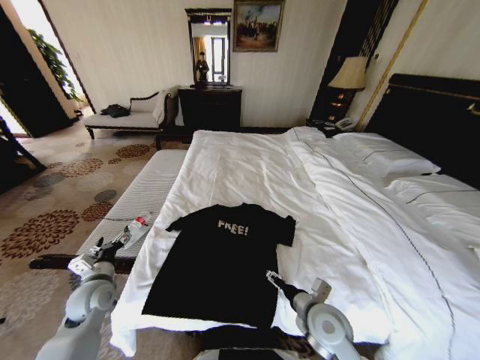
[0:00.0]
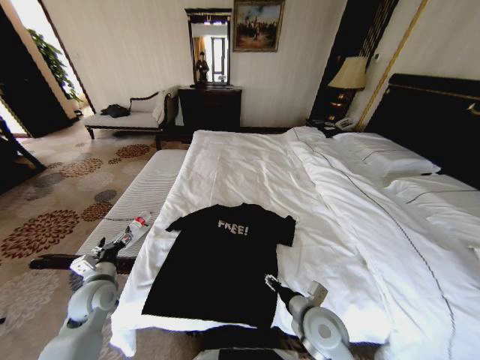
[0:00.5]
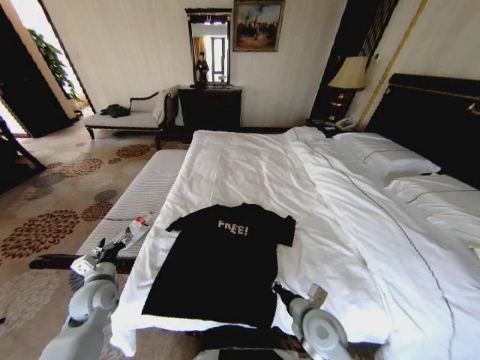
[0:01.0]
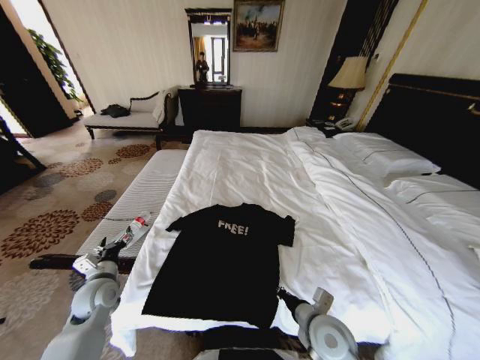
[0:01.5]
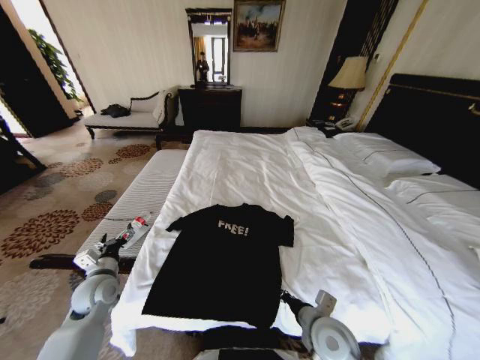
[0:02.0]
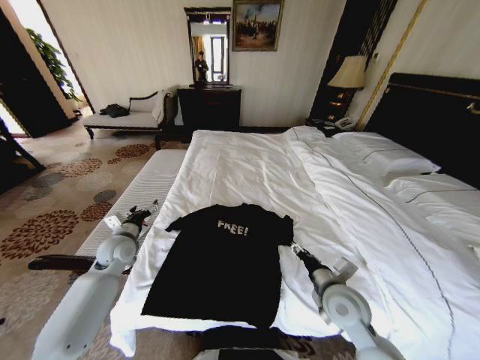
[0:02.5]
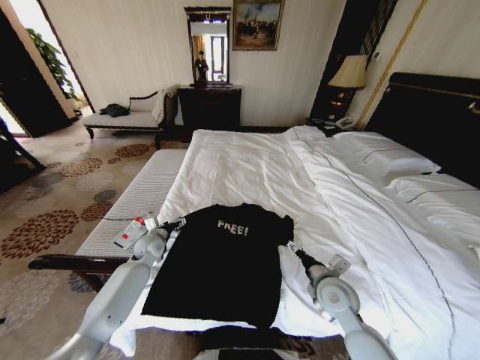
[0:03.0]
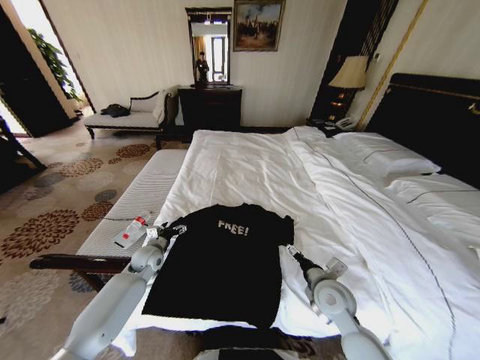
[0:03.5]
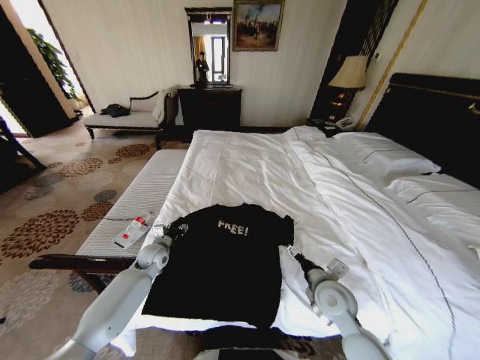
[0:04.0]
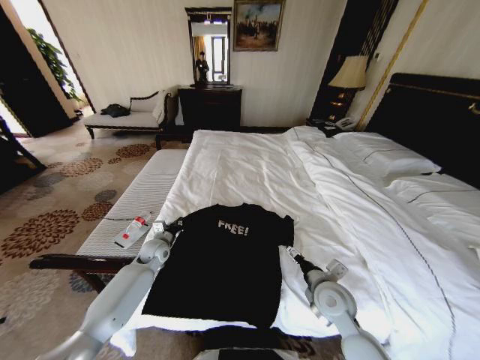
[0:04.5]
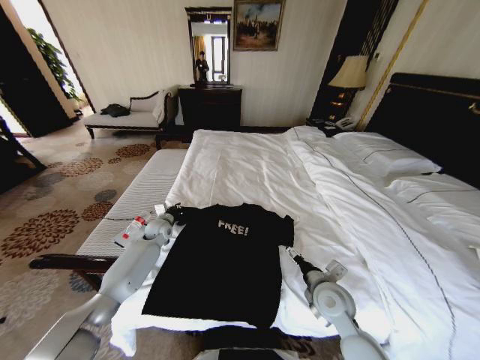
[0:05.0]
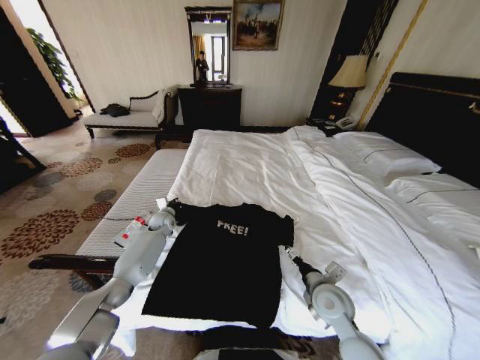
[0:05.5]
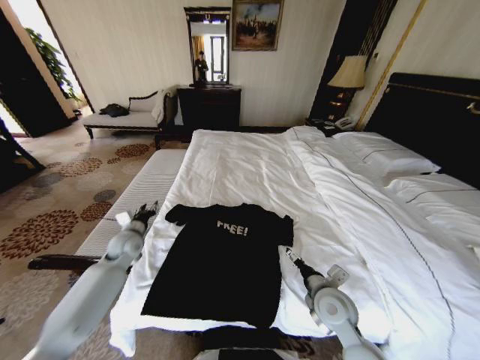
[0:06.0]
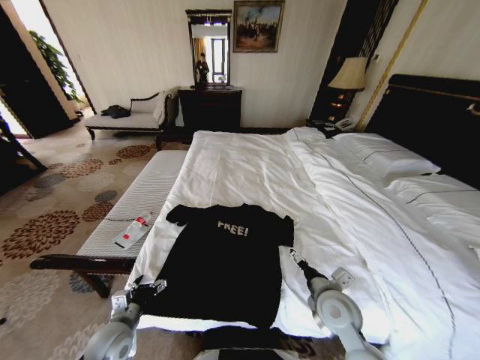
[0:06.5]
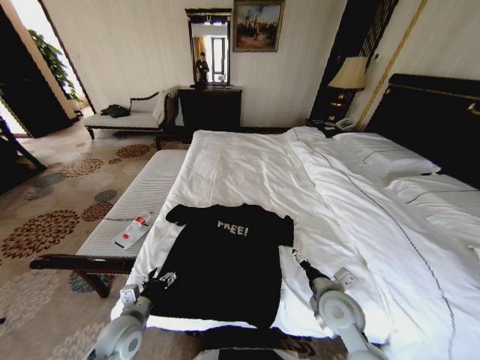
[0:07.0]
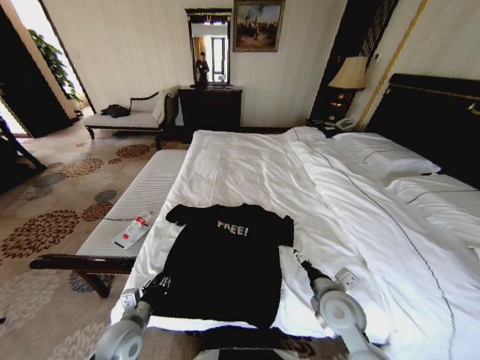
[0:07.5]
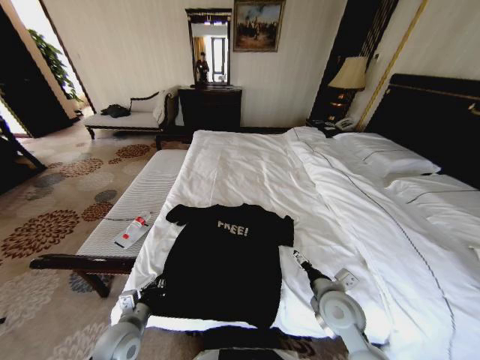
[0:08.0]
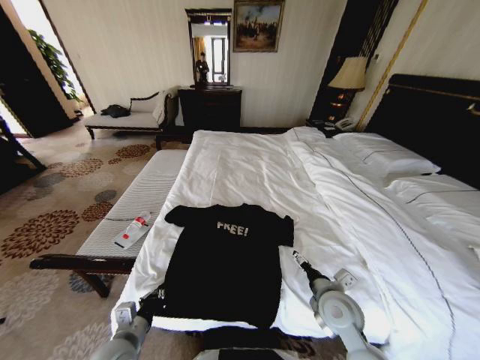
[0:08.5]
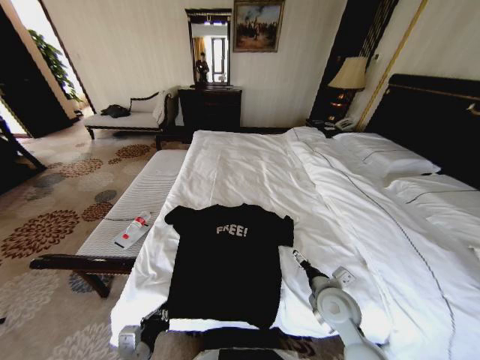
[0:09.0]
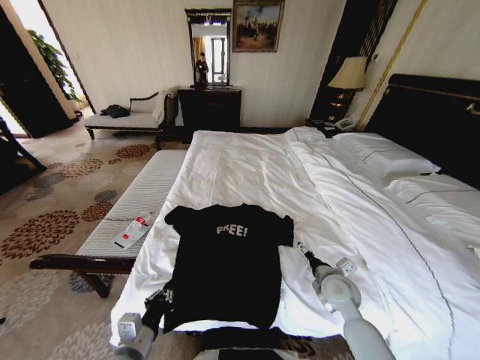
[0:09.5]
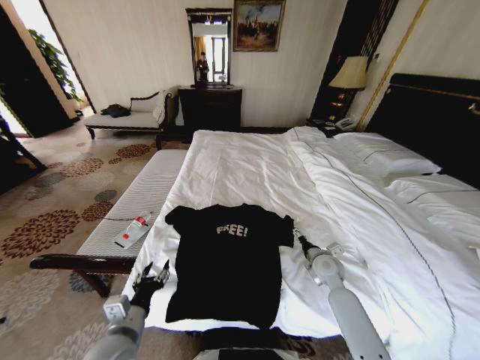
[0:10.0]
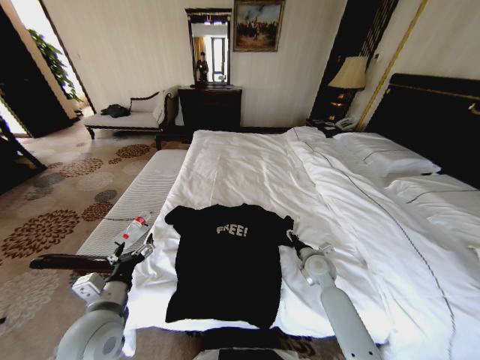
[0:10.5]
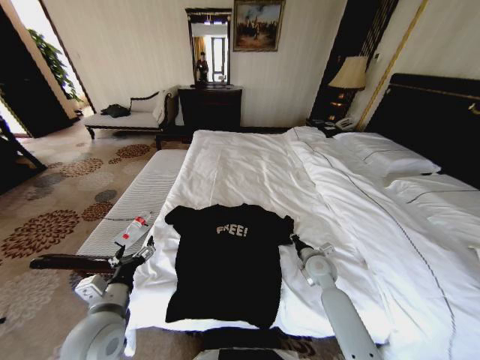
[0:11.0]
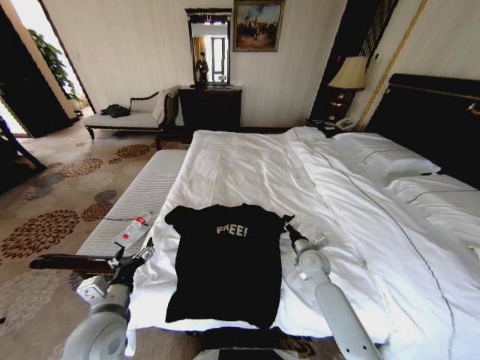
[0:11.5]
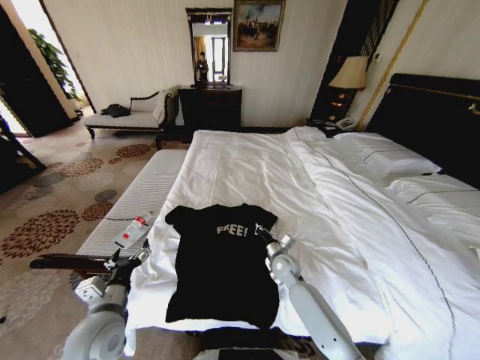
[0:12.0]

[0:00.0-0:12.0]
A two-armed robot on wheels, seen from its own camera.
Task of the whole recording: Fold the clothes on the bed.
0.0 to 2.0 s: The right gripper closes.
2.0 to 4.0 s: The right gripper travels forward by roughly 10 cm, and opens; the left gripper heads forward, to the right and downward, covering about 15 cm, and closes up.
4.0 to 6.0 s: The left gripper heads upward and to the left, covering approximately 10 cm, moves roughly 15 cm forward and comes back, and closes, then opens again.
6.0 to 8.0 s: The left gripper heads backward, covering about 25 cm, and closes.
8.0 to 10.0 s: The right gripper goes about 15 cm forward and to the right. Meanwhile the left gripper travels upward by about 10 cm, and opens up.
10.0 to 12.0 s: The right gripper moves to the left, approximately 10 cm, and closes its fingers. The left gripper changes place by some 5 cm, and opens its fingers.

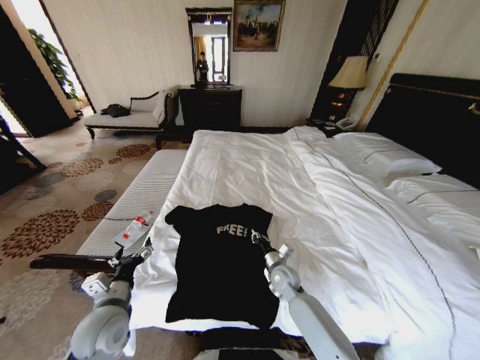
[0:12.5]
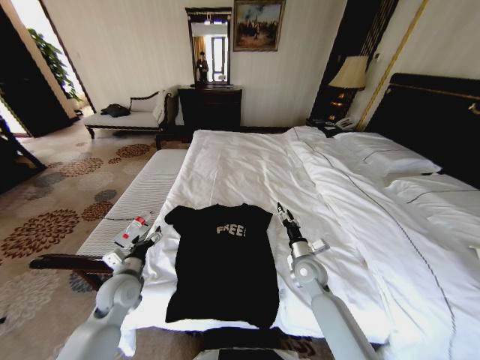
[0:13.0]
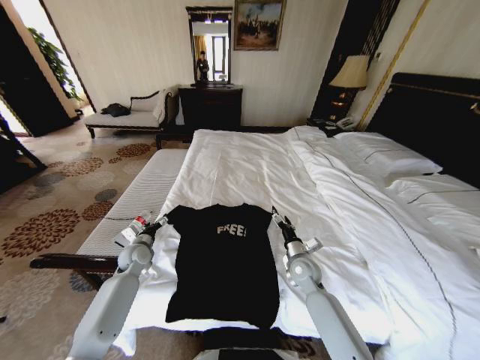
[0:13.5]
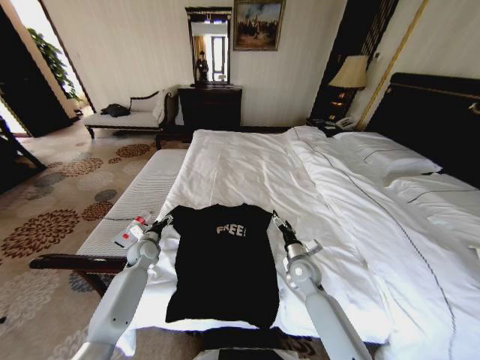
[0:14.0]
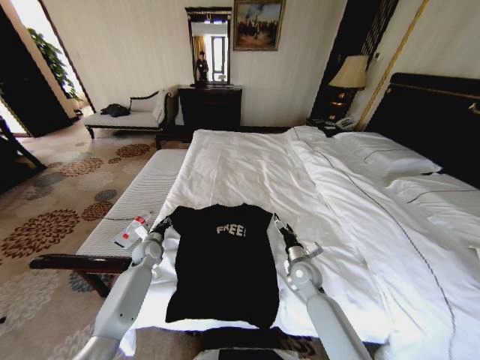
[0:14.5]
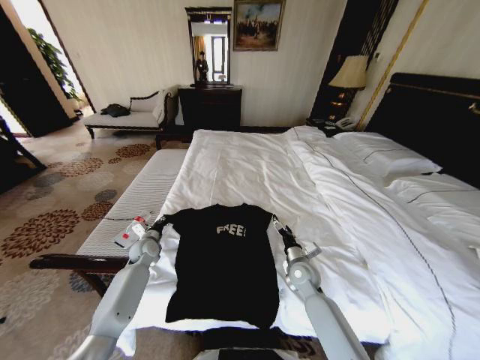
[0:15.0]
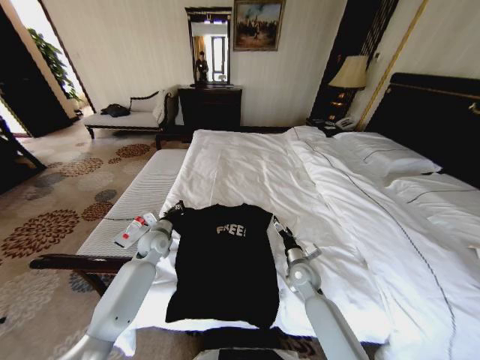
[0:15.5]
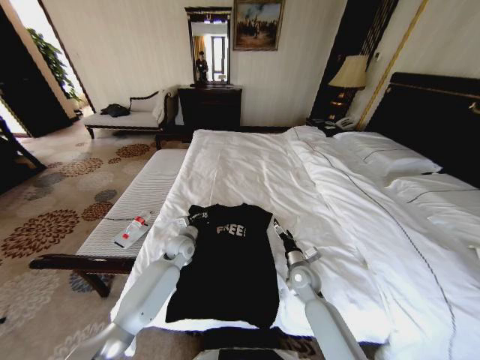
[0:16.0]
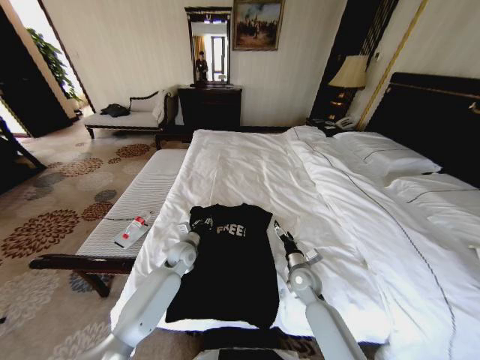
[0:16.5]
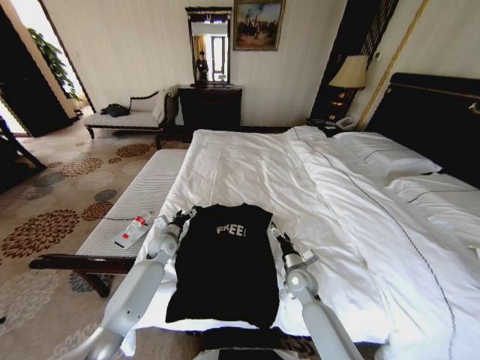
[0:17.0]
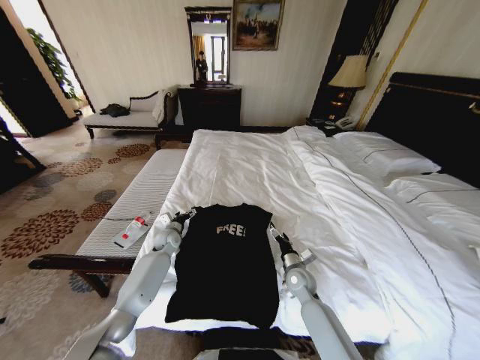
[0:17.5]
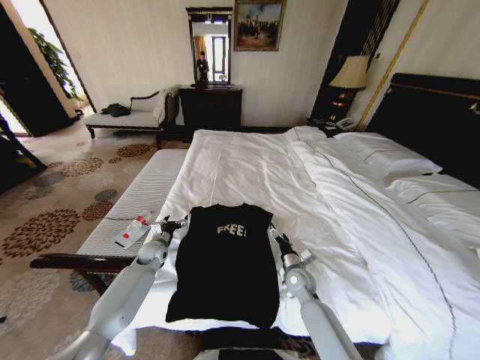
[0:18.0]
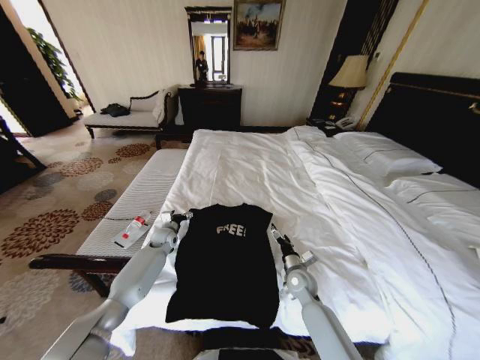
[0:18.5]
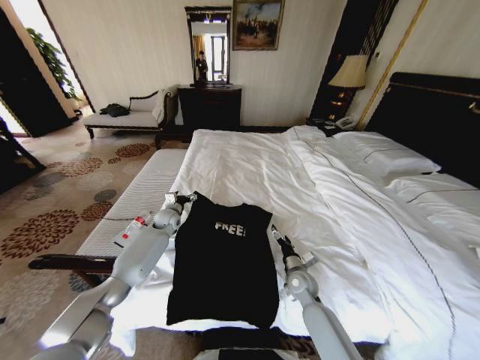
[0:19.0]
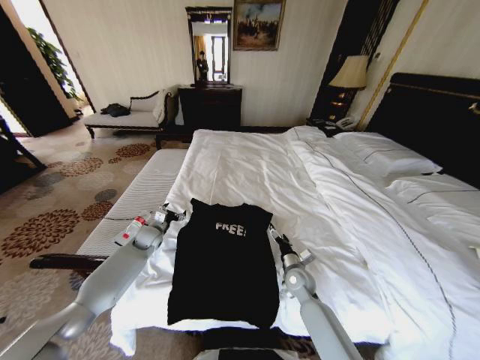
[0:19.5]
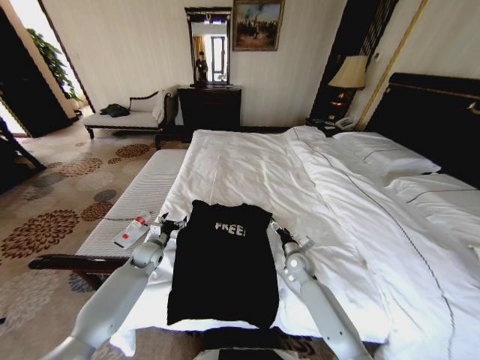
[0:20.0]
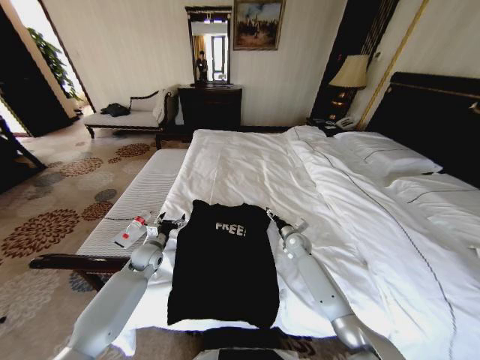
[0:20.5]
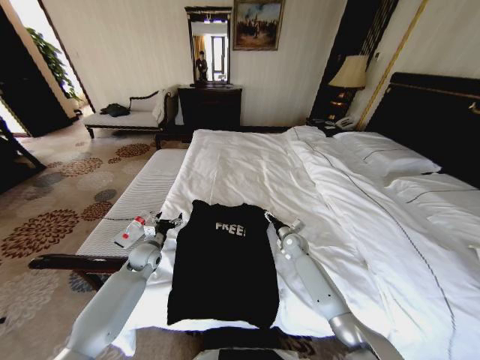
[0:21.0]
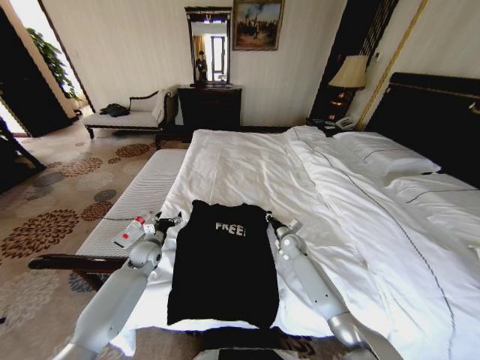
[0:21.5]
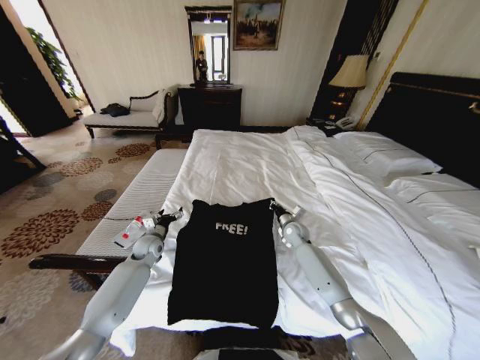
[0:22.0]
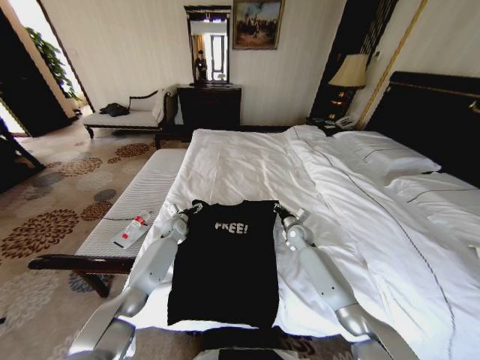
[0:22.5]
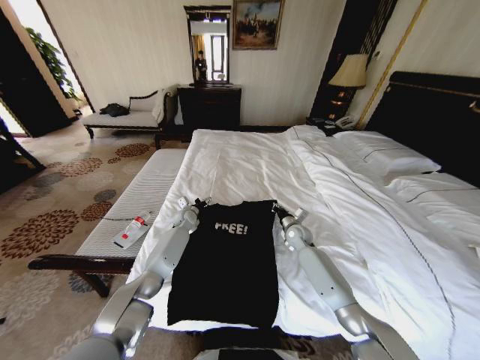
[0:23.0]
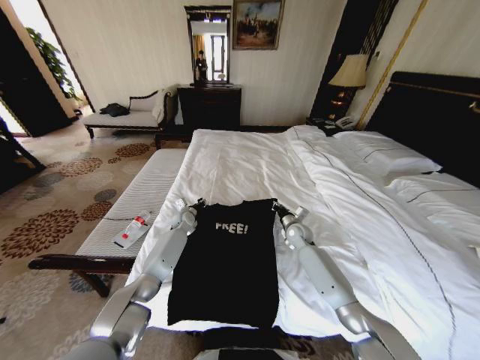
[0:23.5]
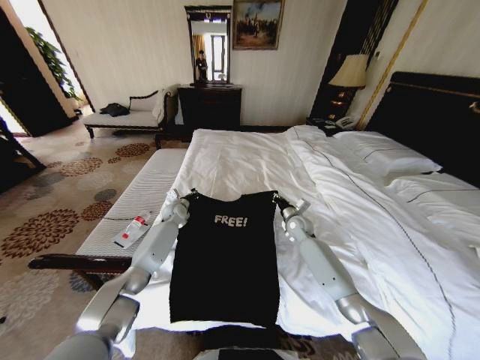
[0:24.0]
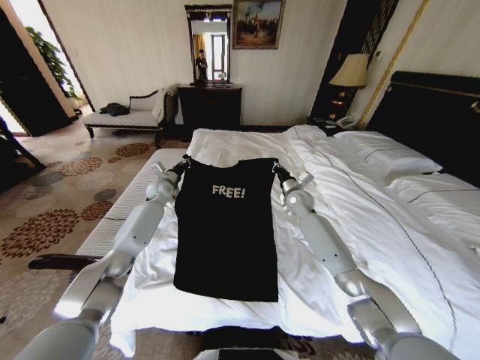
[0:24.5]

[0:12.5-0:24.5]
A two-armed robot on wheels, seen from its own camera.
Task of the whole recording: Fold the clothes on the bed.
12.5 to 14.5 s: The left gripper shifts approximately 25 cm forward and downward, and closes up; the right gripper is displaced to the right by about 5 cm, and opens.
14.5 to 16.5 s: The left gripper shifts some 15 cm to the right.
16.5 to 18.5 s: The left gripper goes approximately 10 cm to the left and forward, and opens.
18.5 to 20.5 s: The right gripper moves forward, roughly 15 cm, while the left gripper heads backward, covering approximately 10 cm.
20.5 to 22.5 s: The left gripper travels forward and to the right by approximately 15 cm; the right gripper closes its fingers.
22.5 to 24.5 s: Both grippers travel together upward and forward, some 15 cm. The left gripper closes its fingers.

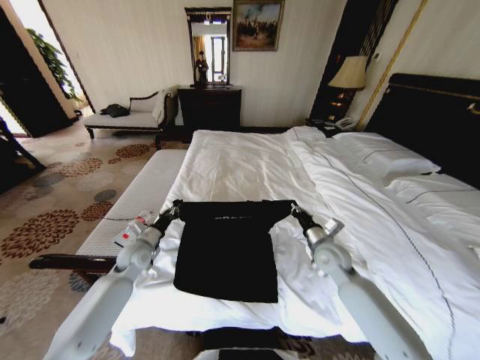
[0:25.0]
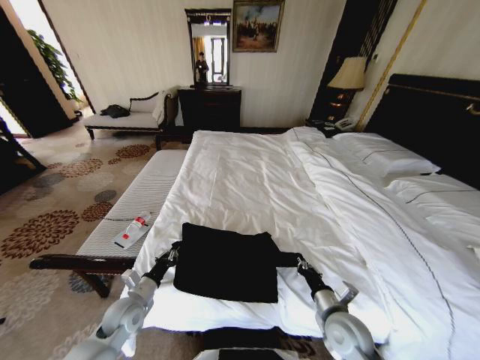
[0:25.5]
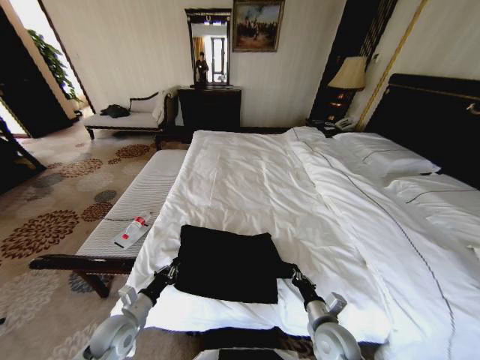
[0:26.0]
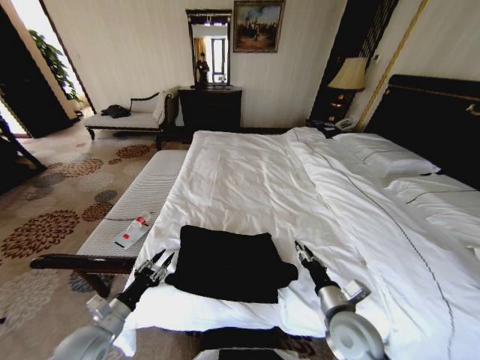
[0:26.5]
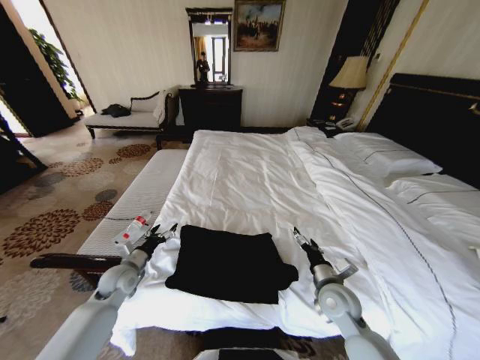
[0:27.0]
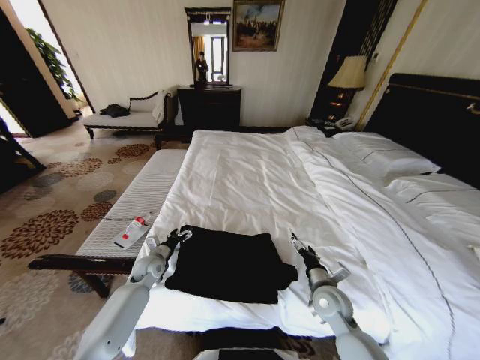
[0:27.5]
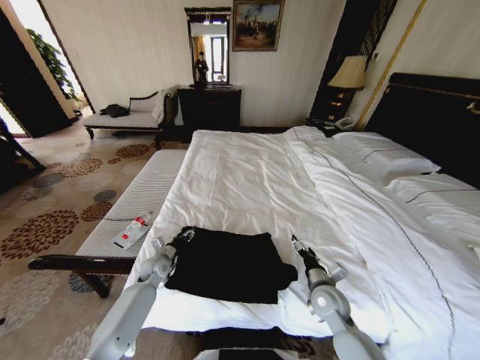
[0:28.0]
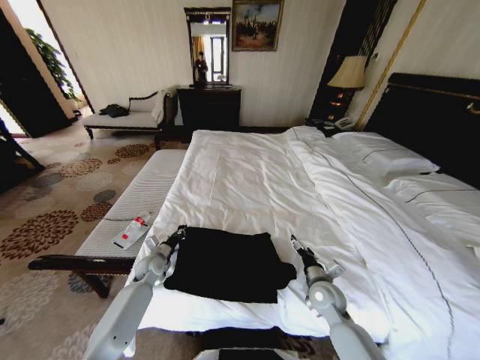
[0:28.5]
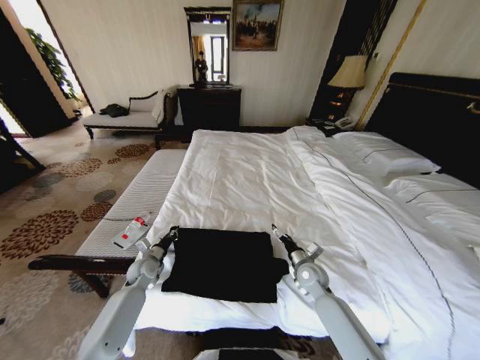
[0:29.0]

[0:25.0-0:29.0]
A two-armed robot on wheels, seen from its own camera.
Task of the whole recording: Fold the clothes on the bed.
25.0 to 27.0 s: The left gripper goes backward and returns, about 20 cm each way, and opens up; the right gripper heads backward, covering approximately 10 cm, and opens.
27.0 to 29.0 s: The left gripper moves downward and forward, roughly 10 cm, and closes its fingers, while the right gripper travels forward and downward by some 10 cm.
